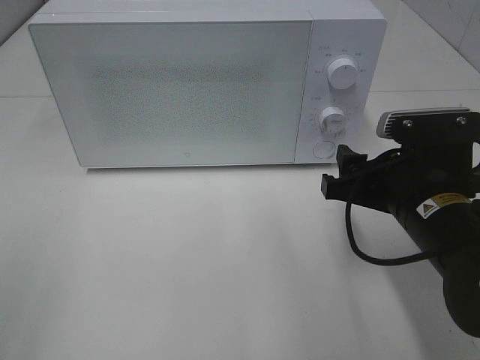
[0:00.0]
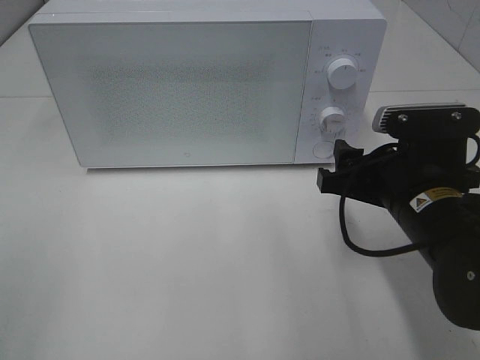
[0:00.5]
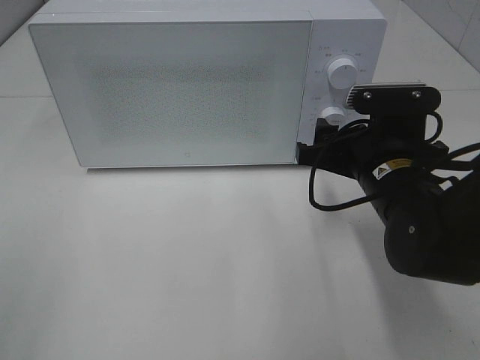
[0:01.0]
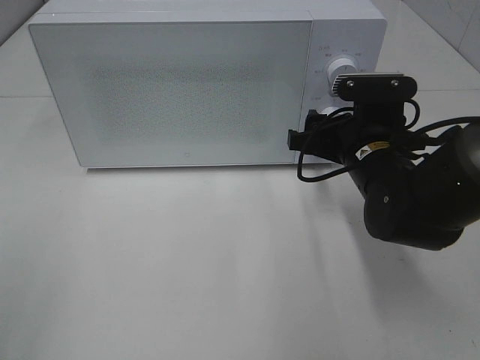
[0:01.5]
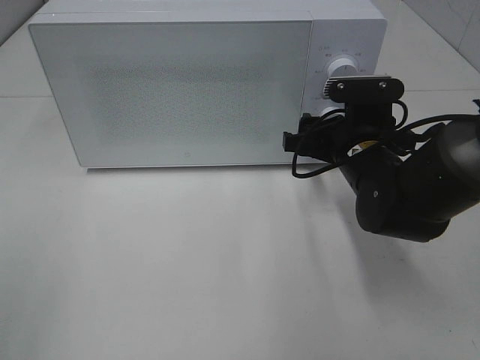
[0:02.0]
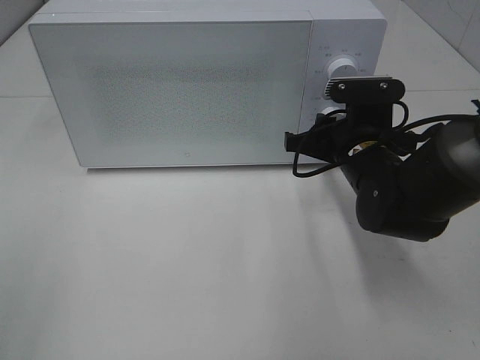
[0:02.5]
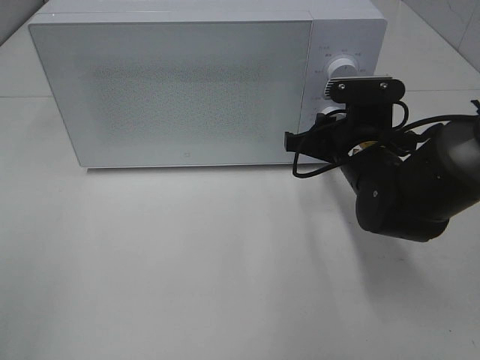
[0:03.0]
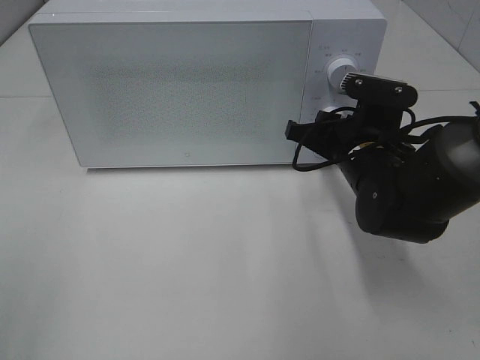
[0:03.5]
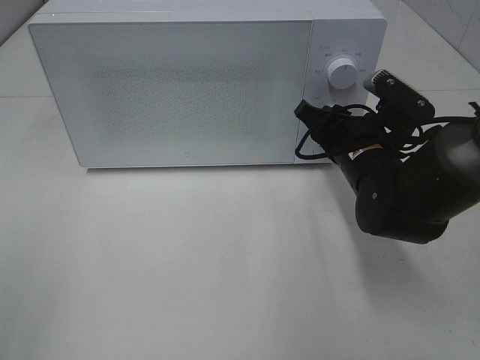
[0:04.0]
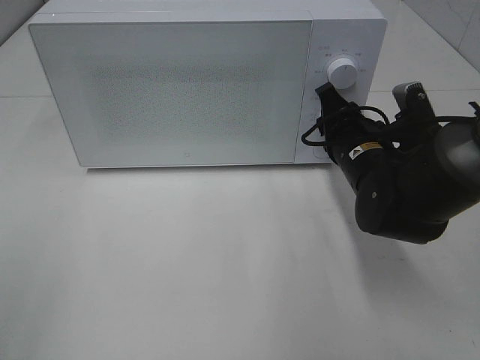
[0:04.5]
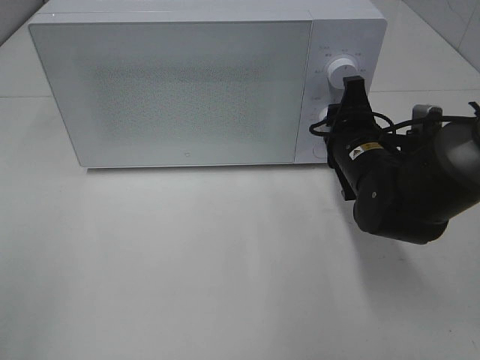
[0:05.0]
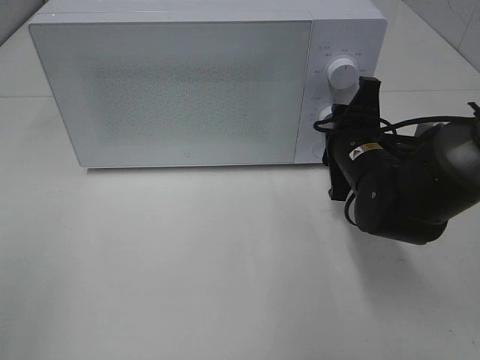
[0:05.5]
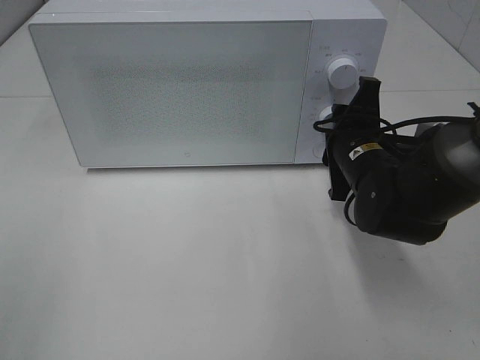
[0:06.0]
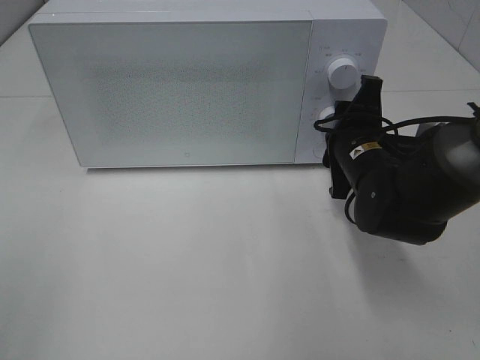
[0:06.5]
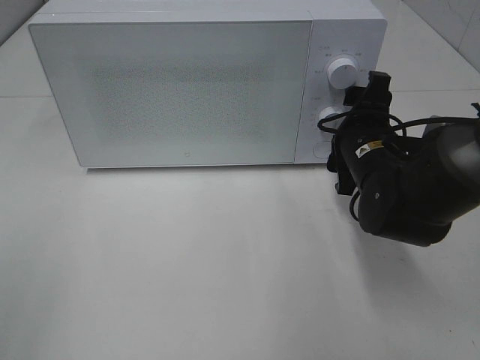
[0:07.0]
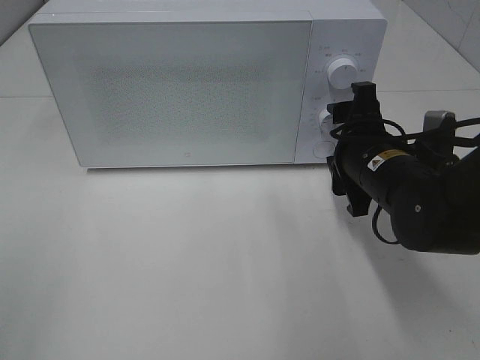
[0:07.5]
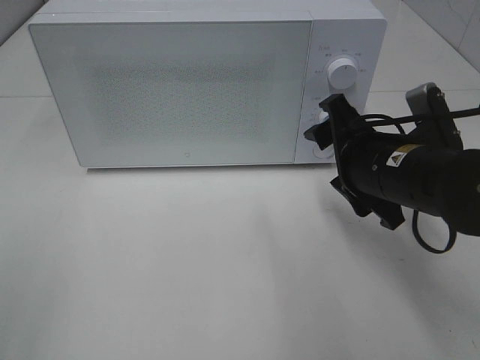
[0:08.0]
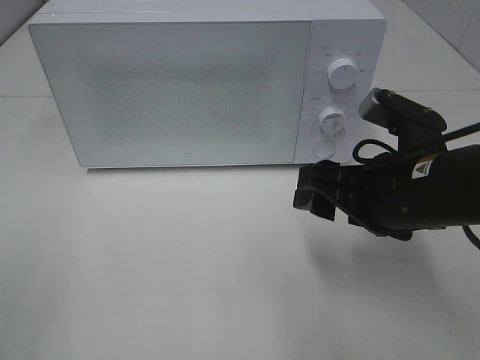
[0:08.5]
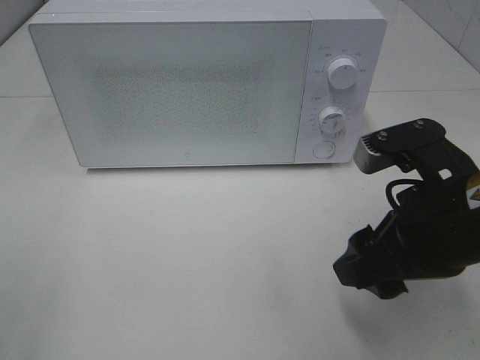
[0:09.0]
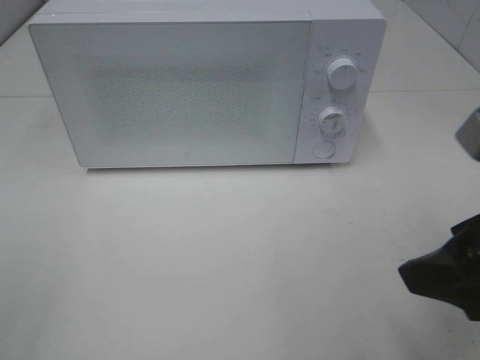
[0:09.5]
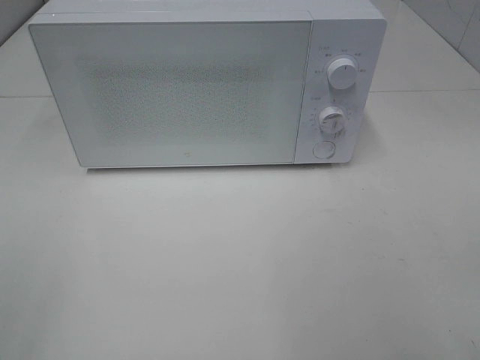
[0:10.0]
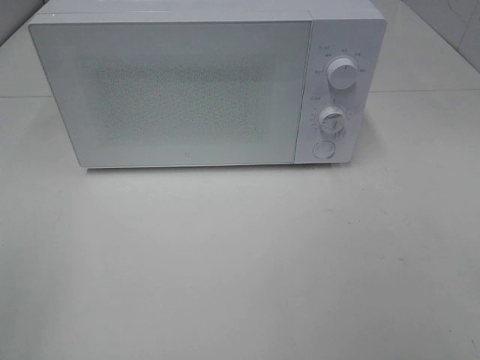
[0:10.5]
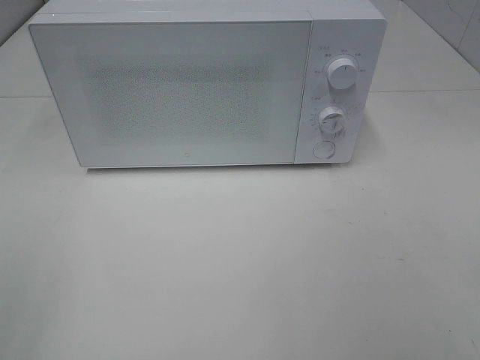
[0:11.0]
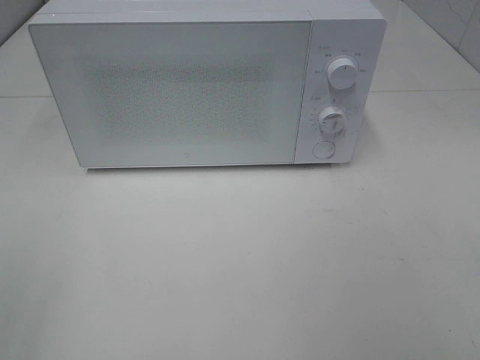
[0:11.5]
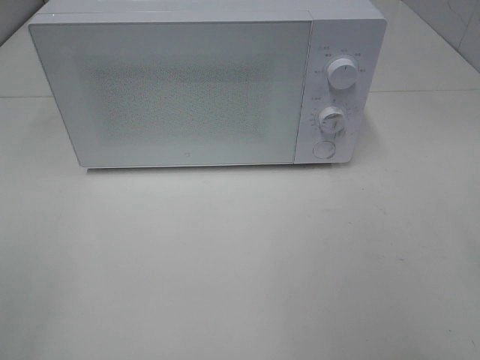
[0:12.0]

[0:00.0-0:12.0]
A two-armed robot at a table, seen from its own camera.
Task of the whole recording: Heat Sandwich.
Step, 0:00.0 to 0:06.5: Right hand: twist timer button.
0:00.0 to 0:02.0: The right gripper heads forward, covering roughly 10 cm.
0:02.0 to 0:04.0: The right gripper closes up.
0:06.0 to 0:08.0: The right gripper is displaced backward by about 5 cm, and opens.
0:08.0 to 0:10.0: The right gripper moves backward, upward and to the right, some 25 cm.

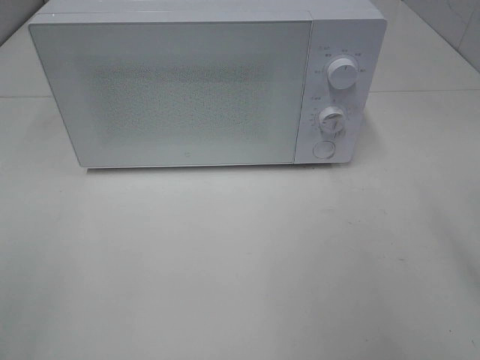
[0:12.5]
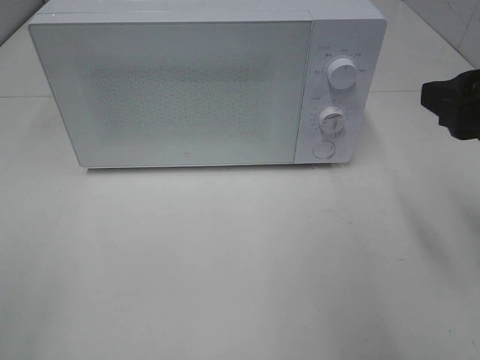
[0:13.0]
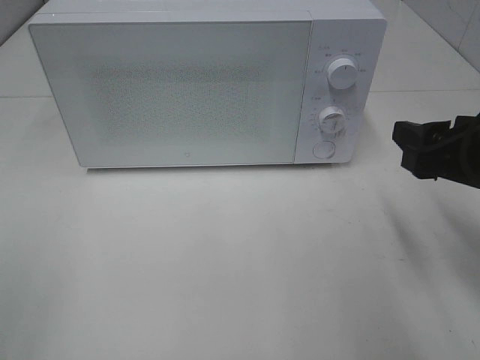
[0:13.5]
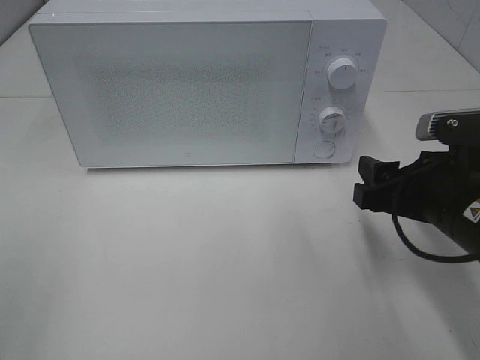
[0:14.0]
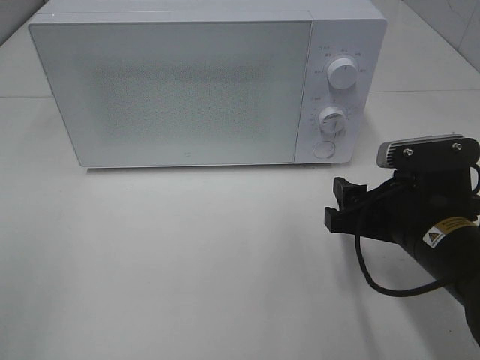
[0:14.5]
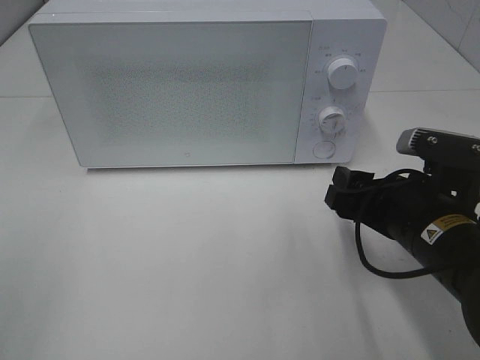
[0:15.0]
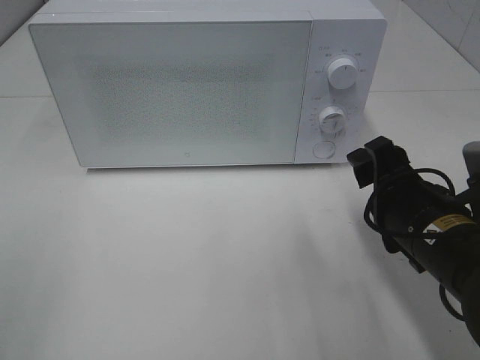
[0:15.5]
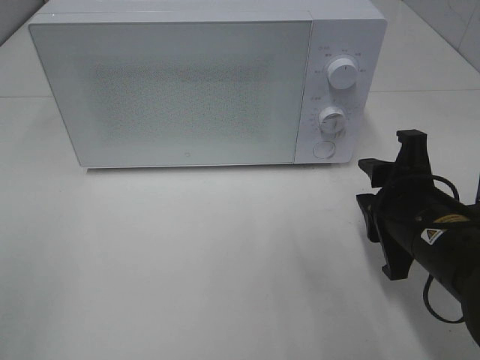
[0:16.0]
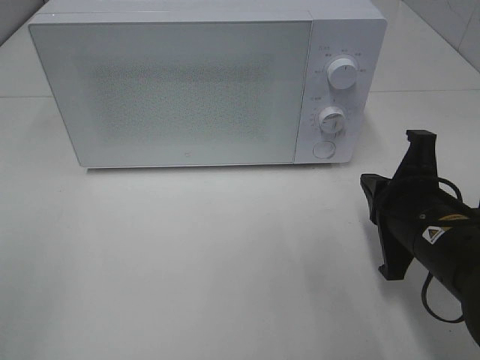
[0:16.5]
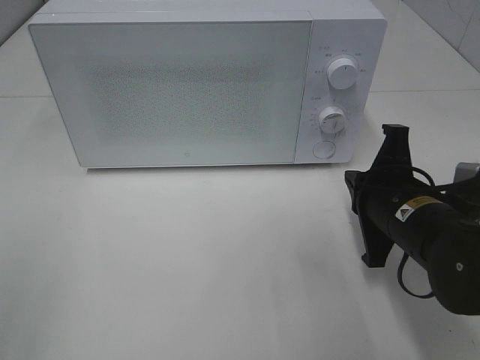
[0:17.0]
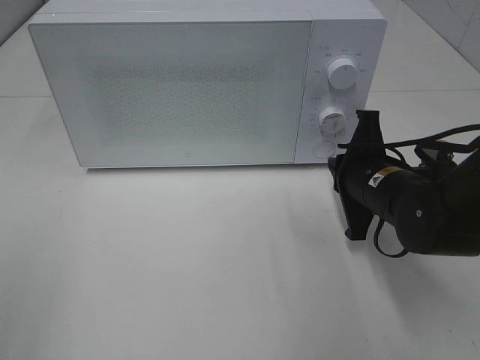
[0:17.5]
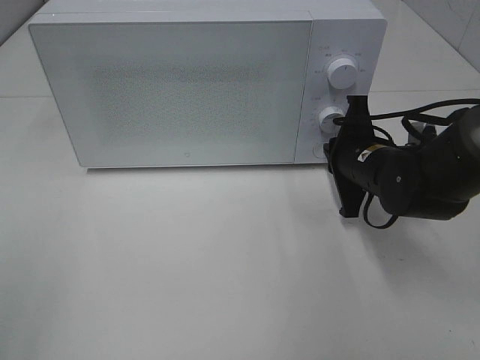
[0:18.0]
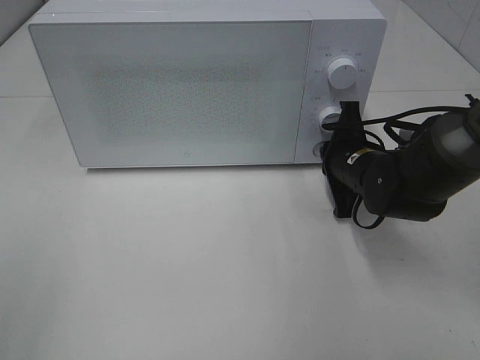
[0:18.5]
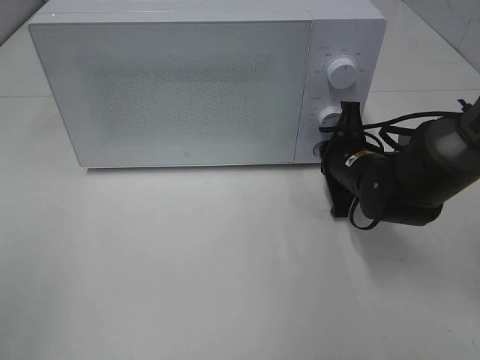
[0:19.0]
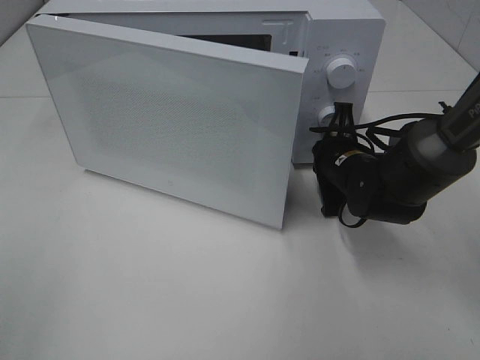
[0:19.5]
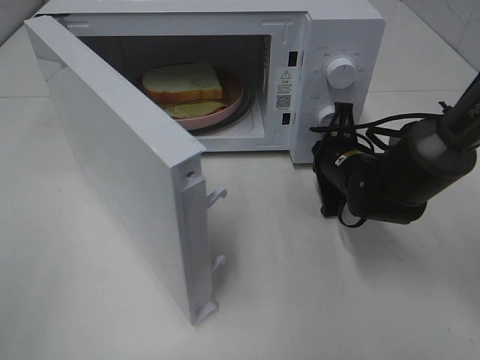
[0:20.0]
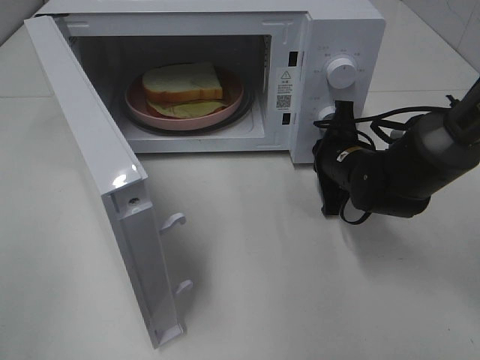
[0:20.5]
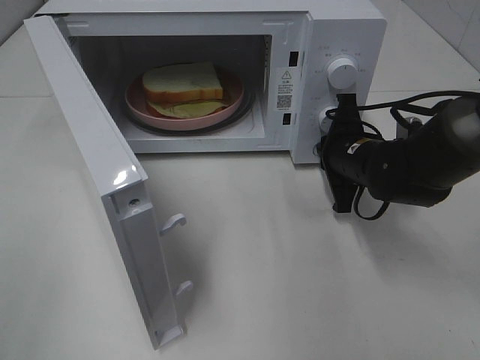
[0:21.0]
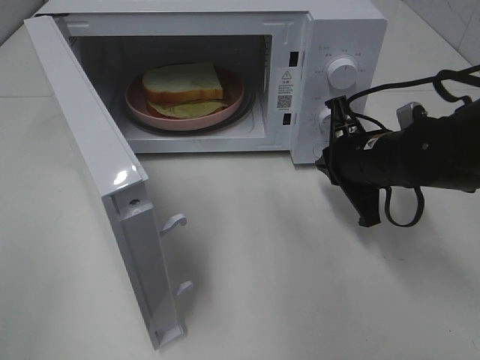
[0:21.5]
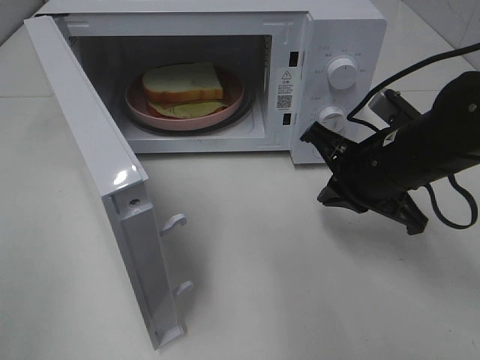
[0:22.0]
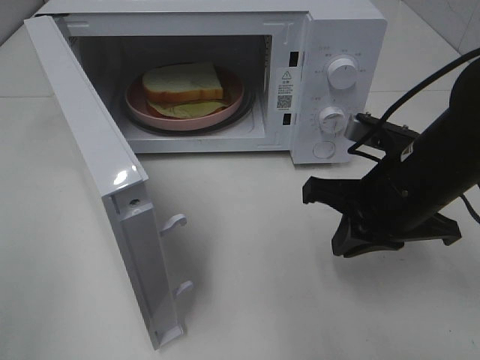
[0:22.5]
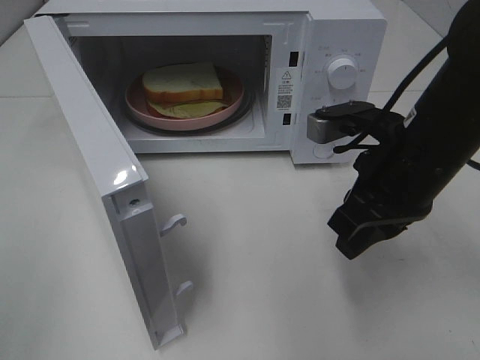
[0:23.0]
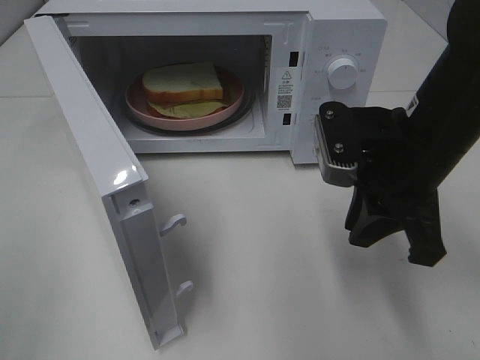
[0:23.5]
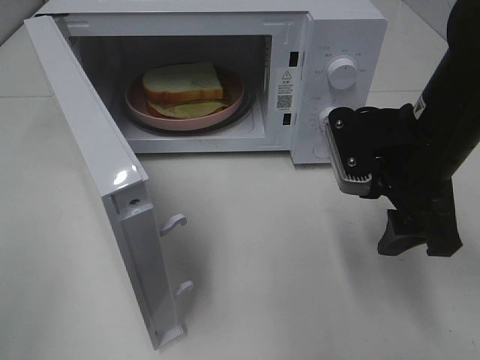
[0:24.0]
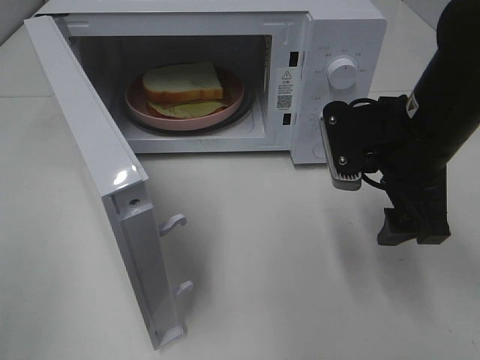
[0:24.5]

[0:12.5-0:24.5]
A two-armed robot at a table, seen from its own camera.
Task of the whole recording: Heat Sandwich.
Step, 0:12.5 to 0:21.0: Right hand: press the switch.
0:12.5 to 0:14.5: The right gripper travels downward and to the left by approximately 20 cm.
0:14.5 to 0:16.5: The right gripper closes its fingers.
0:16.5 to 0:18.5: The right gripper is displaced forward by some 15 cm.
0:20.5 to 0:22.5: The right gripper heads backward and upward, covering about 15 cm.
0:22.5 to 0:24.5: The right gripper opens.

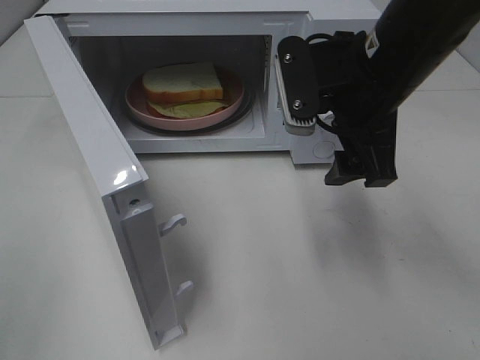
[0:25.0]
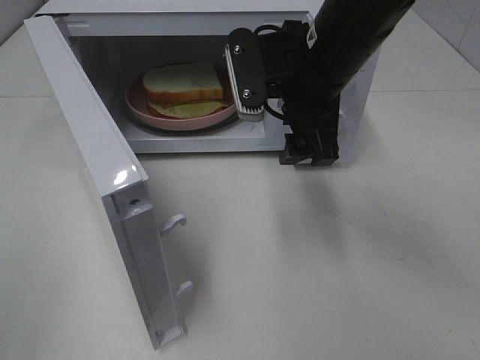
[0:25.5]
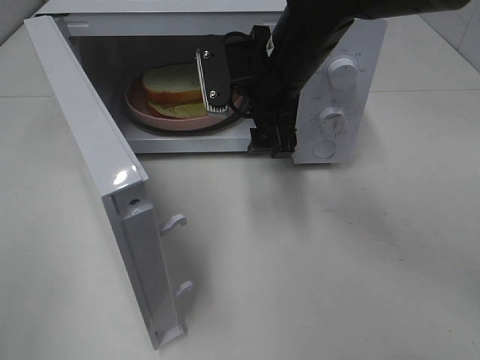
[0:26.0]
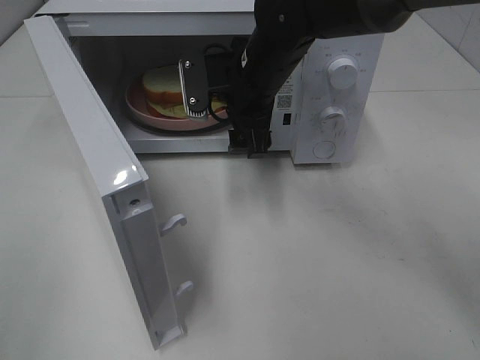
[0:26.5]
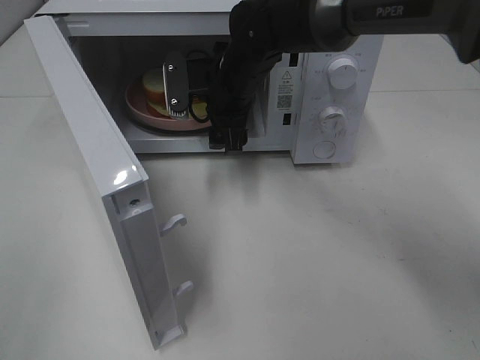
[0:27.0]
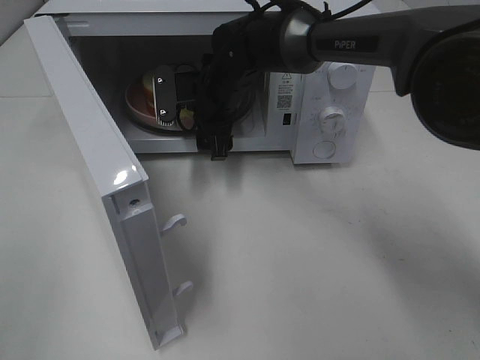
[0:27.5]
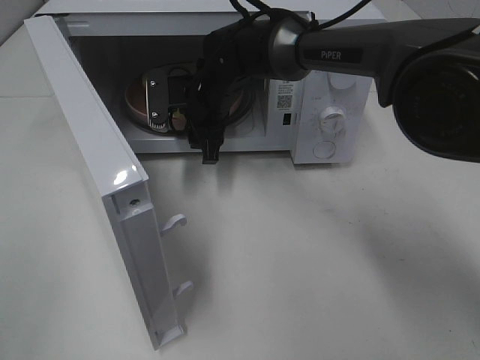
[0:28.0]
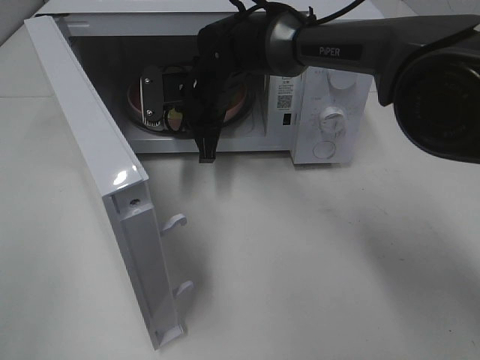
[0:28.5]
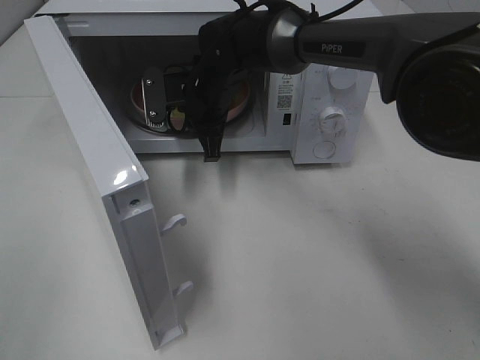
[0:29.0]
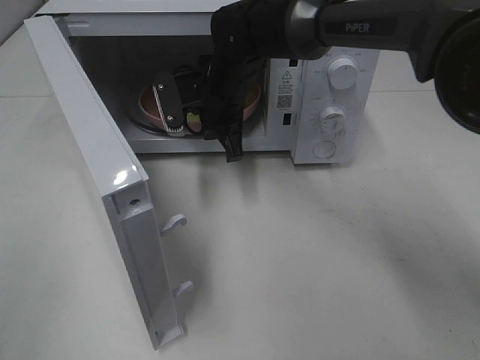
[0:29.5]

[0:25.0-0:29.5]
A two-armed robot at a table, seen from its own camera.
Task of the whole recording: Heat Sandwich.
Step, 0:25.0 to 0:29.0: Right hand: grab the plate with the sandwich.
0:25.0 to 0:27.0: The right gripper shifts approximately 20 cm forward, to the left and downward.
0:27.0 to 0:29.5: The right gripper closes up.
